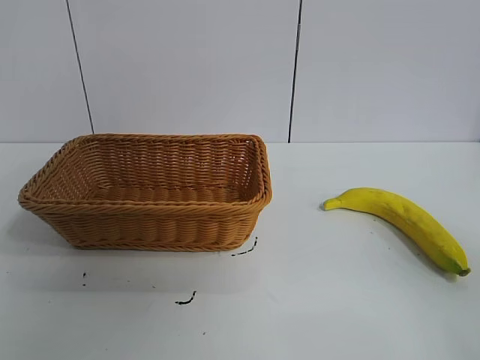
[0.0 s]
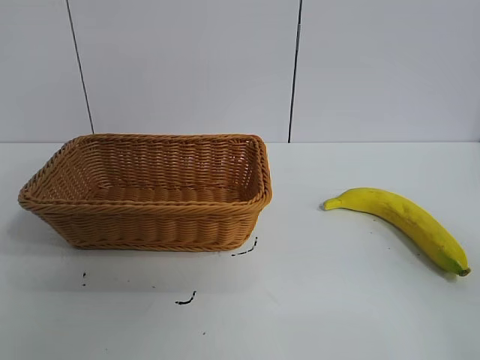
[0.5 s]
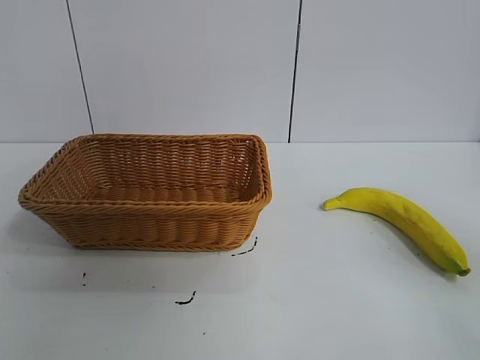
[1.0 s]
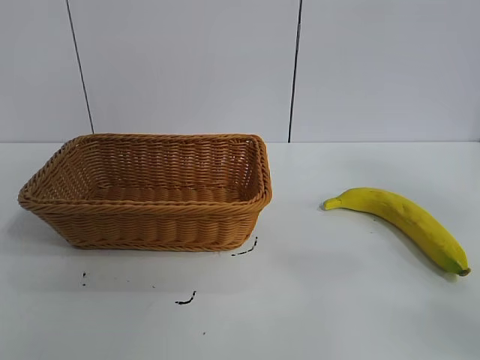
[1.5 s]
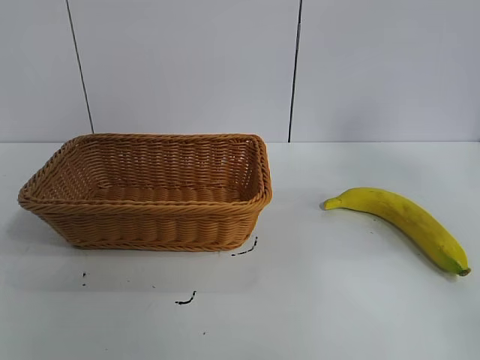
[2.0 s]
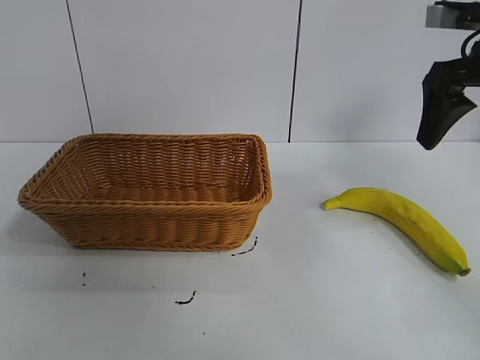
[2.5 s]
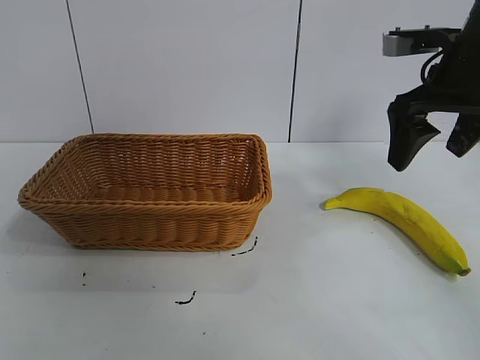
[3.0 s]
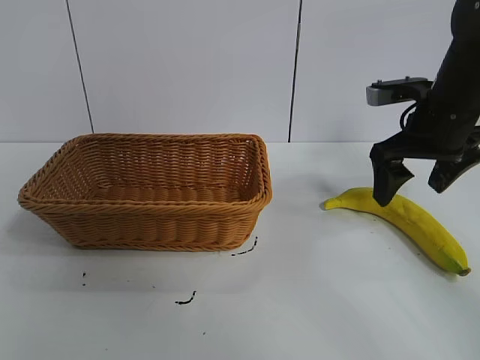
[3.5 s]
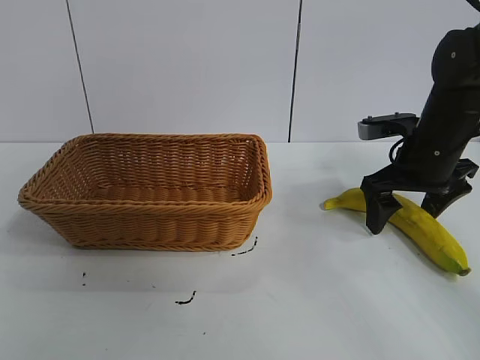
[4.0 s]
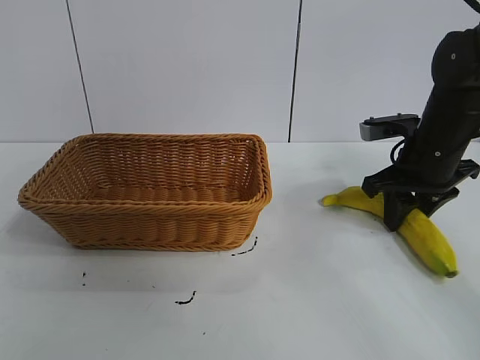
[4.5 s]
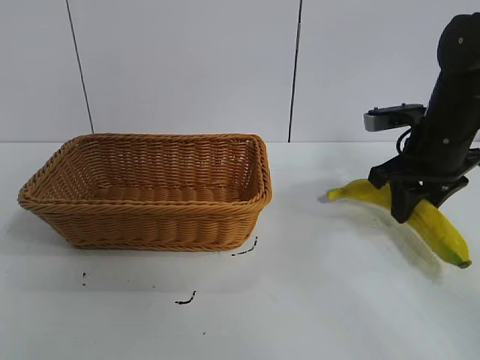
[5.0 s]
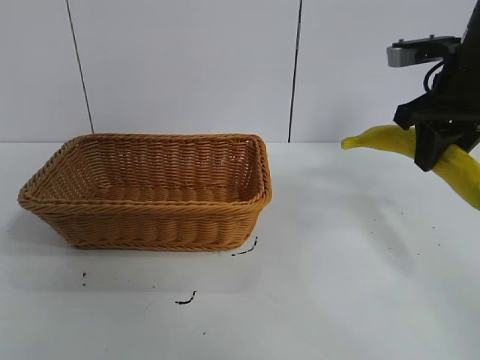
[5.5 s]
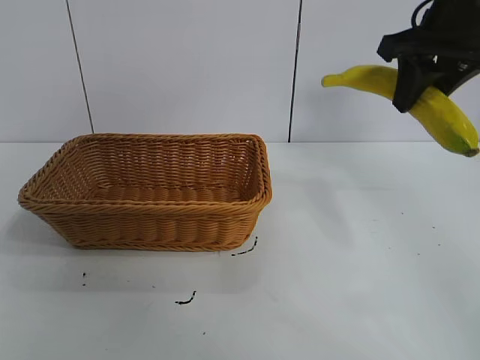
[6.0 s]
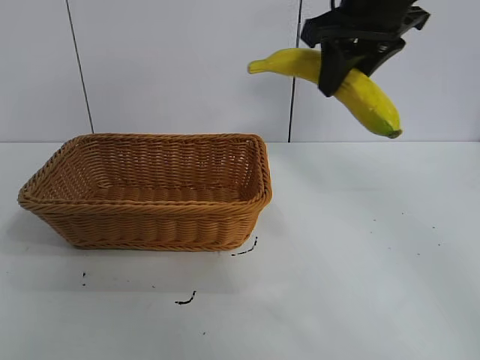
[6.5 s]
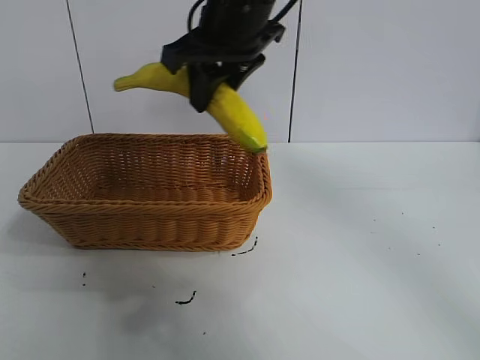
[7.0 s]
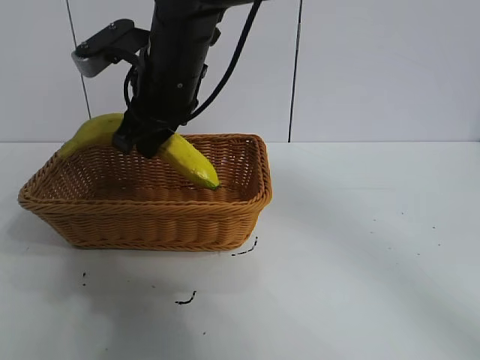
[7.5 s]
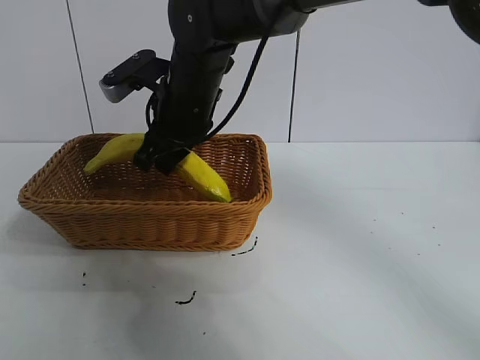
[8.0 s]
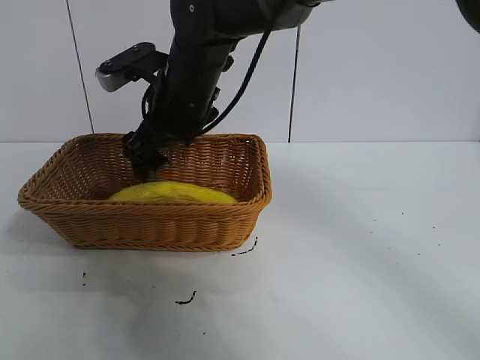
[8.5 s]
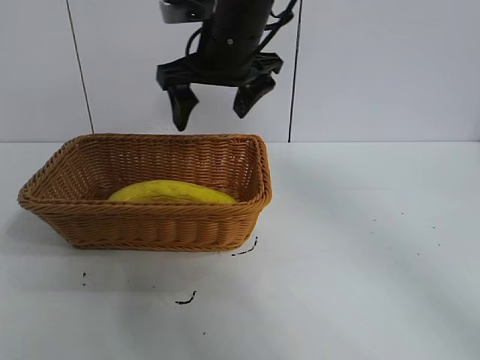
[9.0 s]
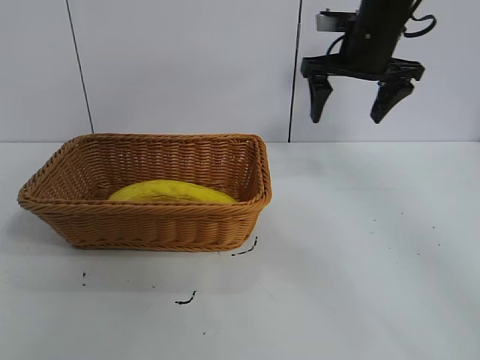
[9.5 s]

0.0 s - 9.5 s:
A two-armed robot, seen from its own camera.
Task of the whole recording: pick up the banana and put it into the basket.
Step, 1.0 s - 4.5 s: Grasp the banana with right gripper.
Step, 5.0 s - 8.5 s: Place the banana in the basket with right gripper.
